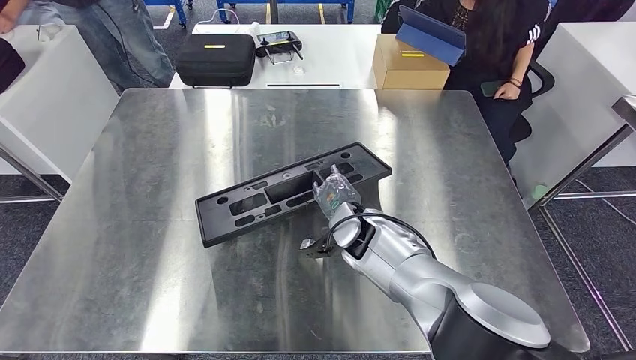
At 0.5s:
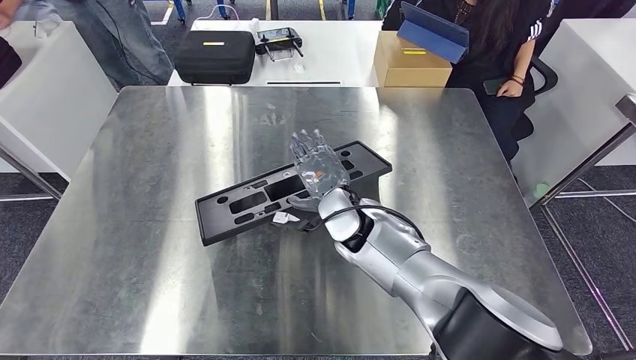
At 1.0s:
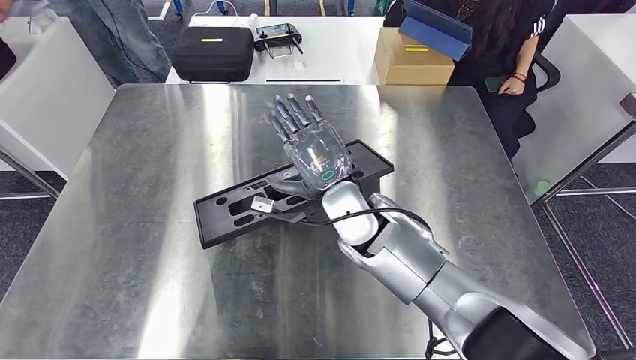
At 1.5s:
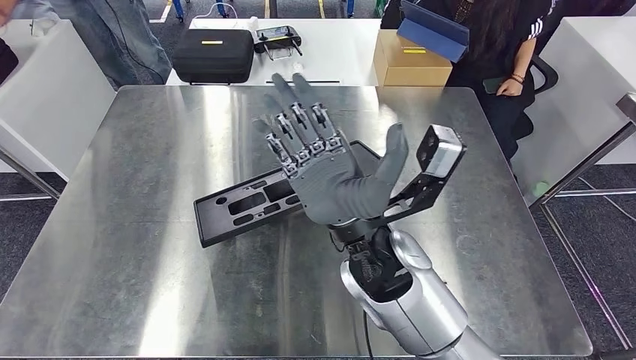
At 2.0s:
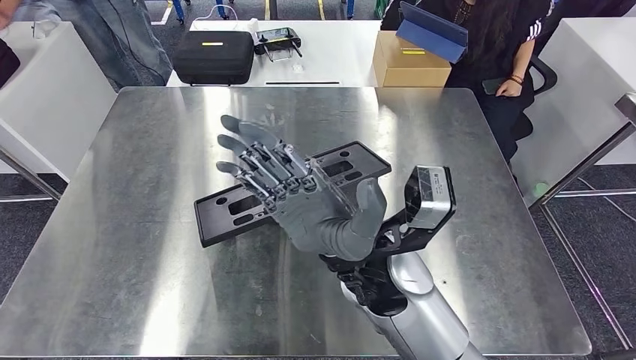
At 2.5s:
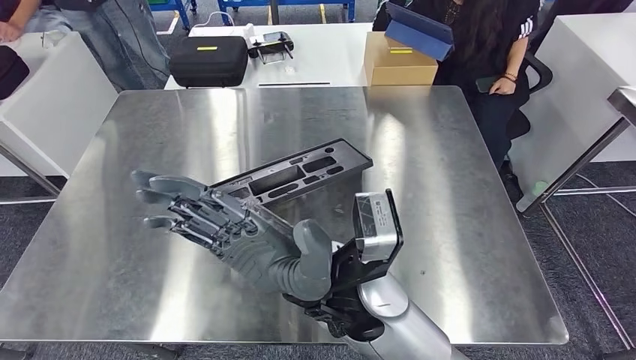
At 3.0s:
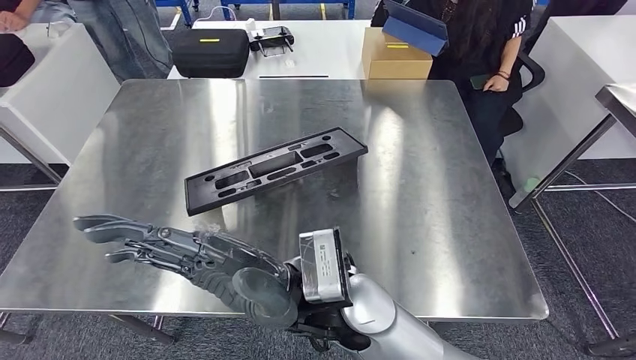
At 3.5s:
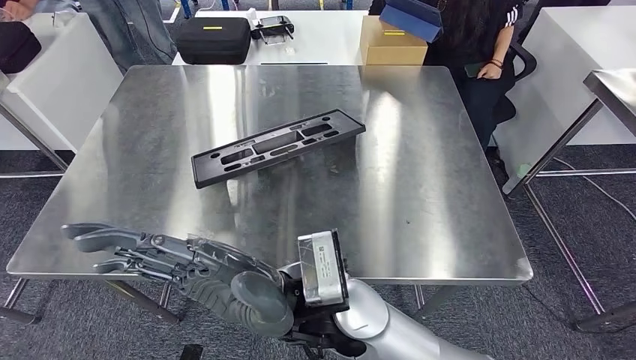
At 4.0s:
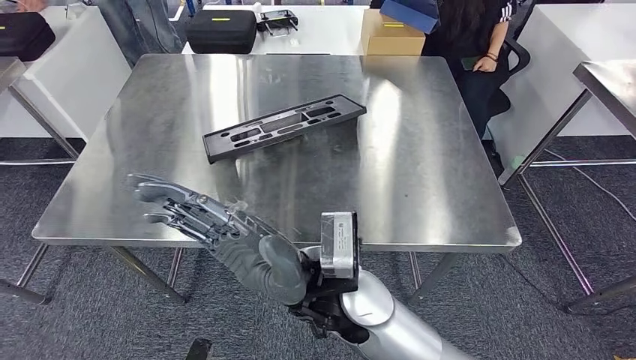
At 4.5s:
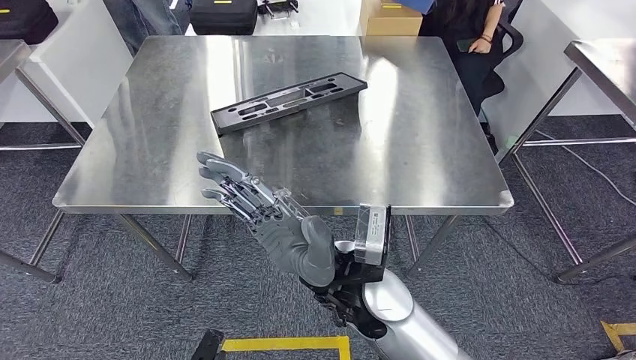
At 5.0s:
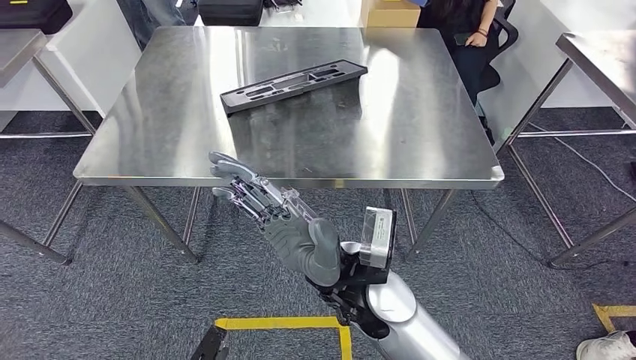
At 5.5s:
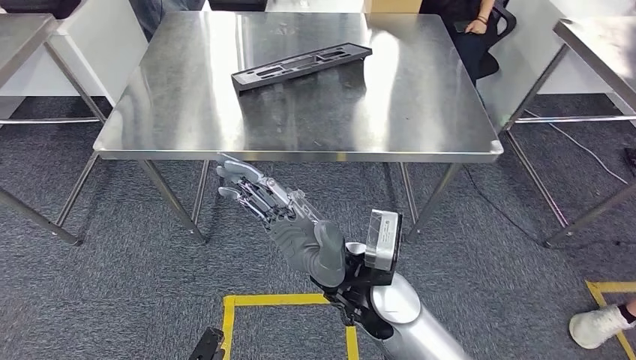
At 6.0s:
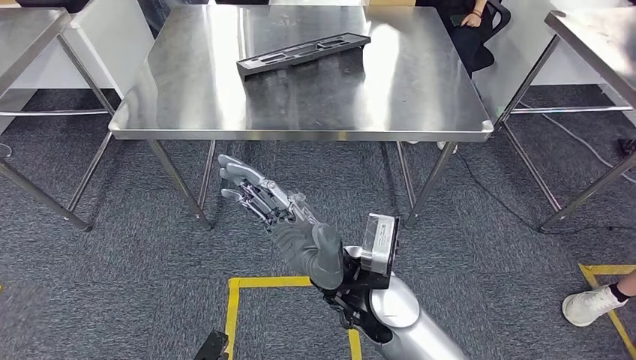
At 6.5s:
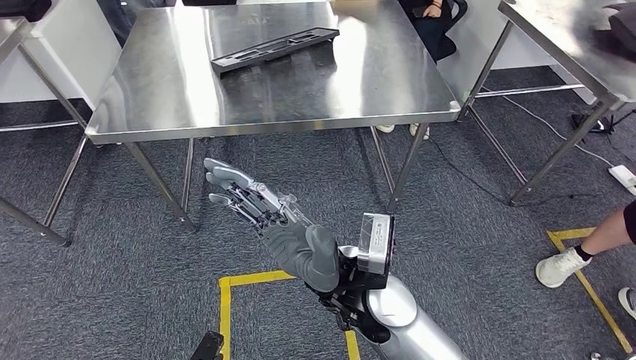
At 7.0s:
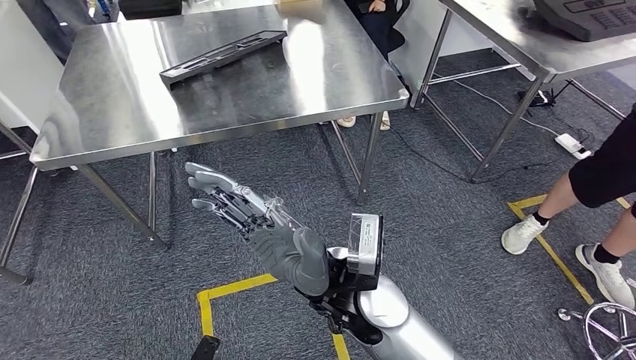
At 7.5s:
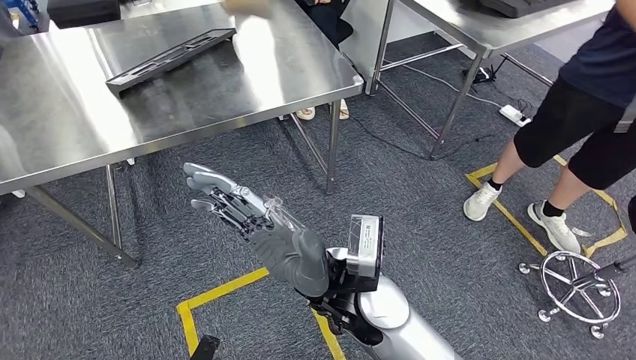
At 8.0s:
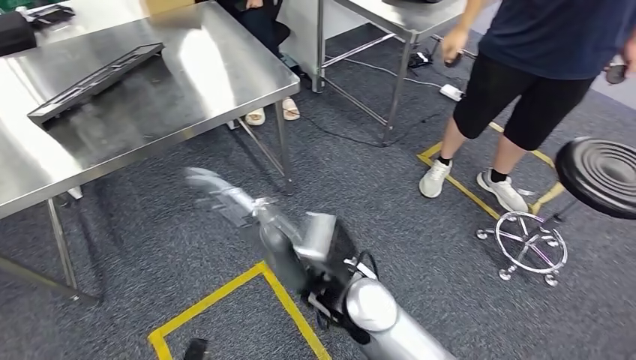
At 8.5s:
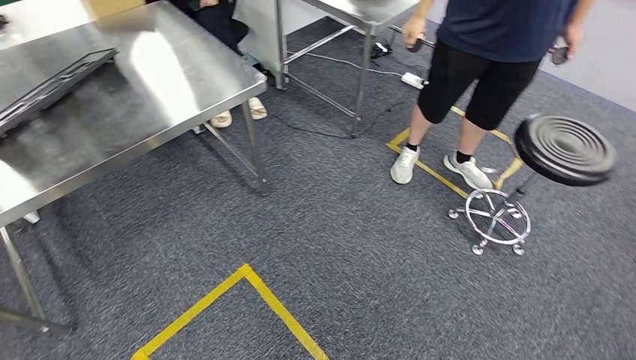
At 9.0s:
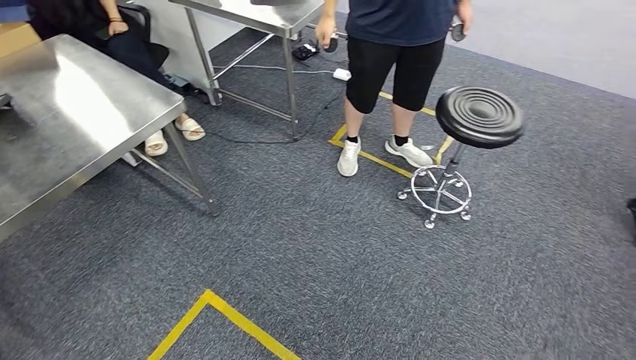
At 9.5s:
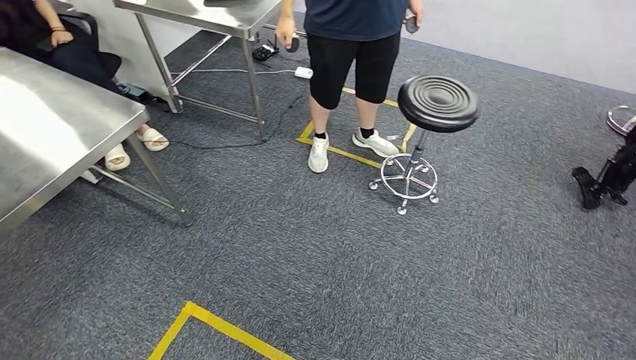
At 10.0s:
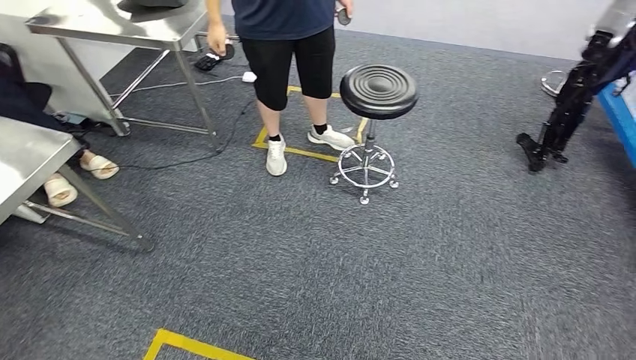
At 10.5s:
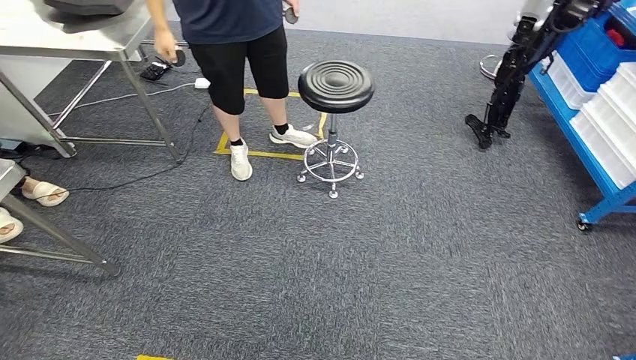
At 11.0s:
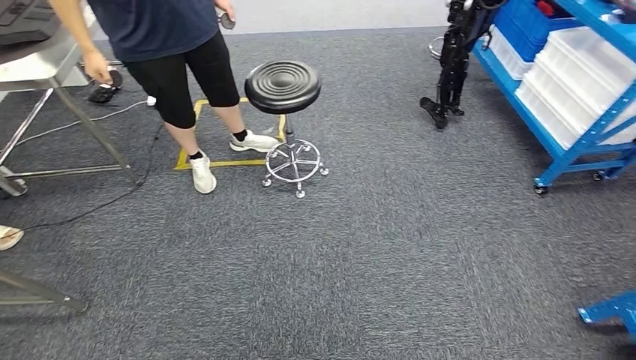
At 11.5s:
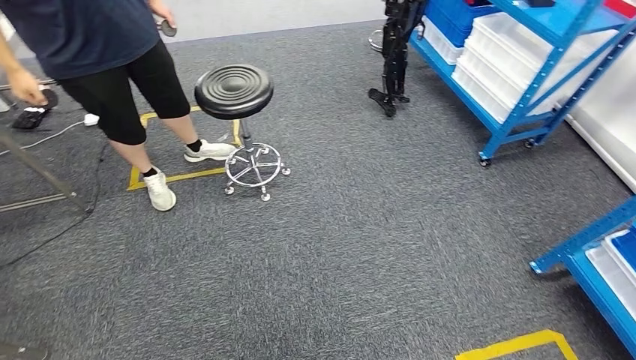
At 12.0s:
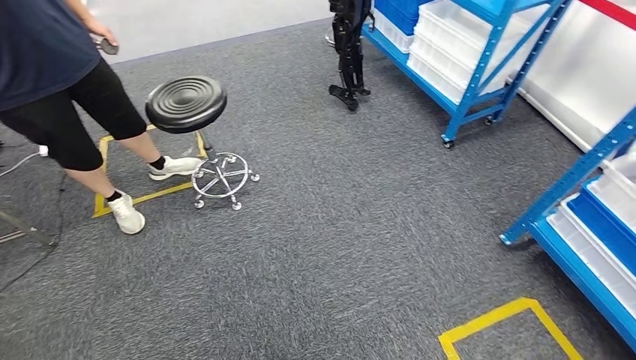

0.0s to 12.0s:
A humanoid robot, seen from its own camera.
Step, 0.0s to 6.0s: Insert the large material into the corresponding slot on the workbench.

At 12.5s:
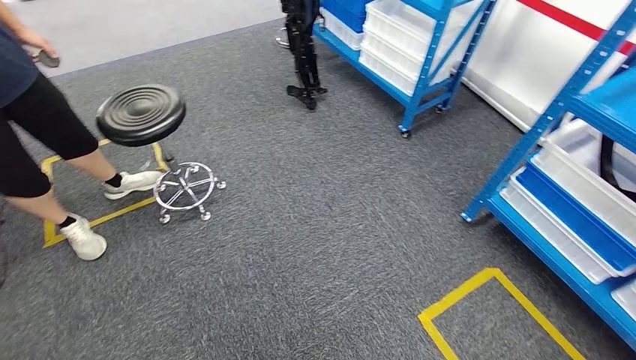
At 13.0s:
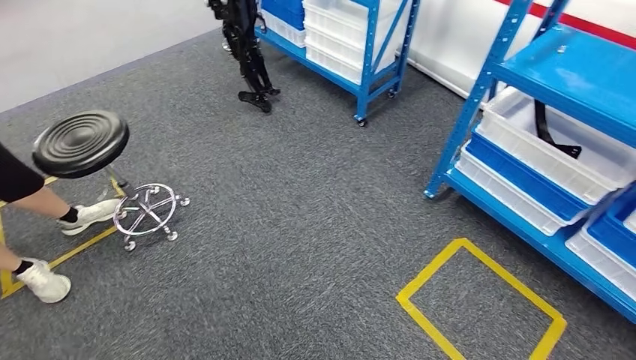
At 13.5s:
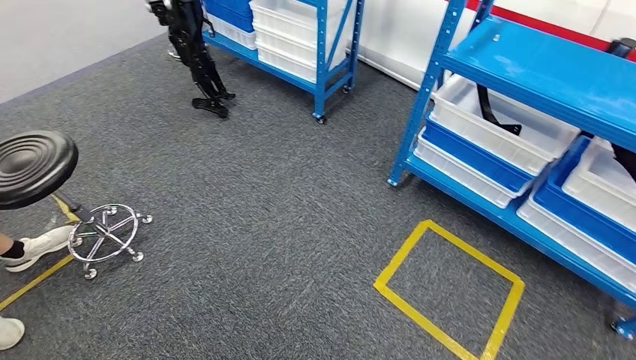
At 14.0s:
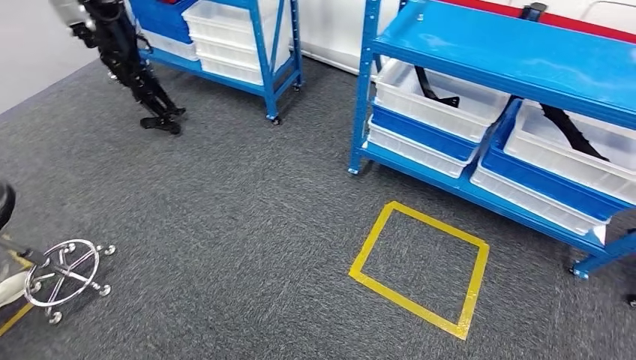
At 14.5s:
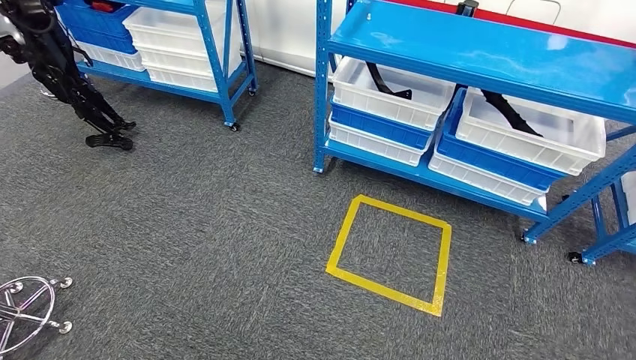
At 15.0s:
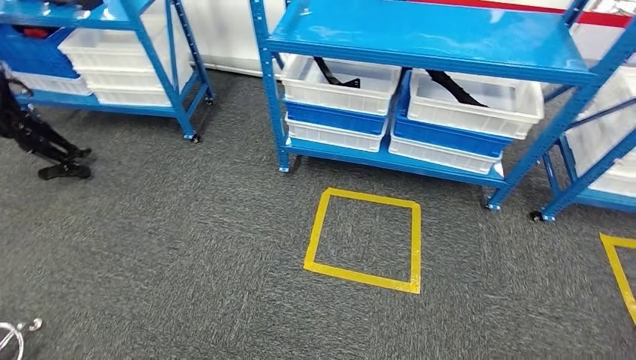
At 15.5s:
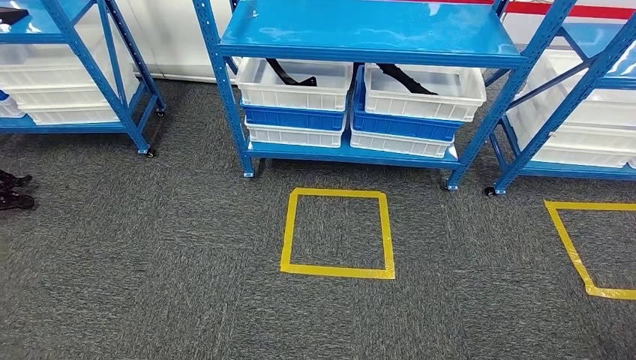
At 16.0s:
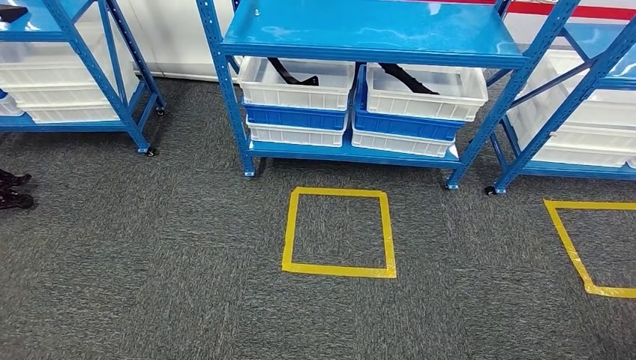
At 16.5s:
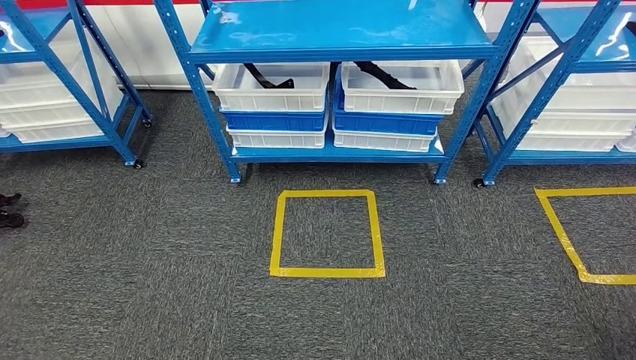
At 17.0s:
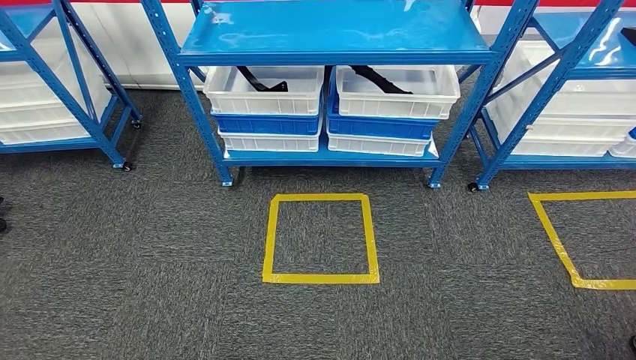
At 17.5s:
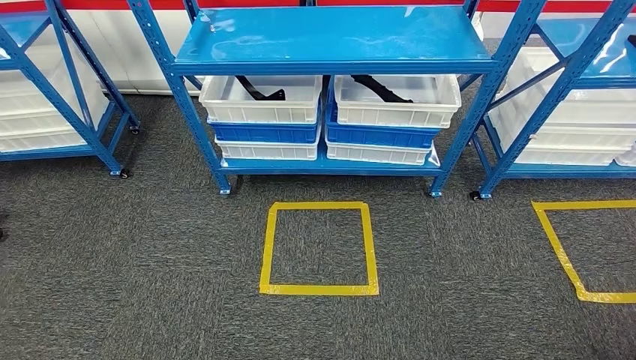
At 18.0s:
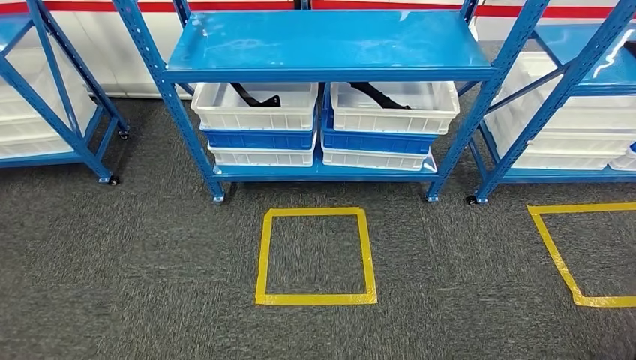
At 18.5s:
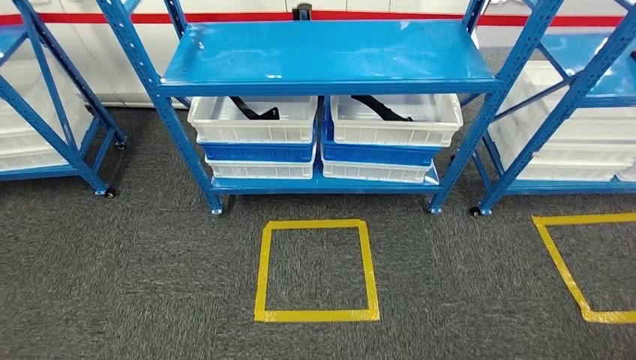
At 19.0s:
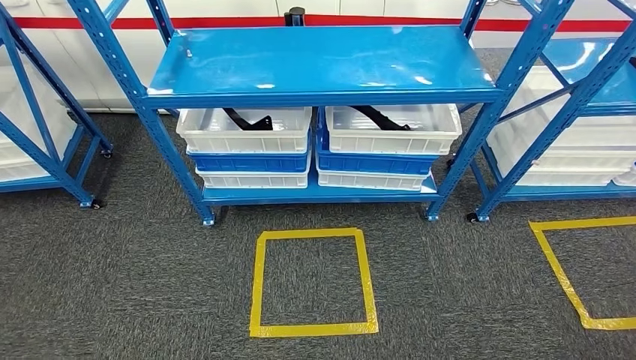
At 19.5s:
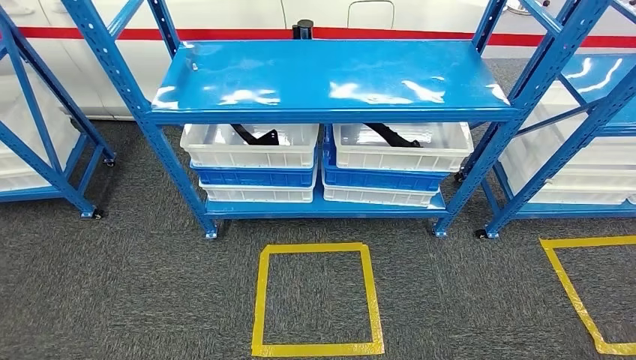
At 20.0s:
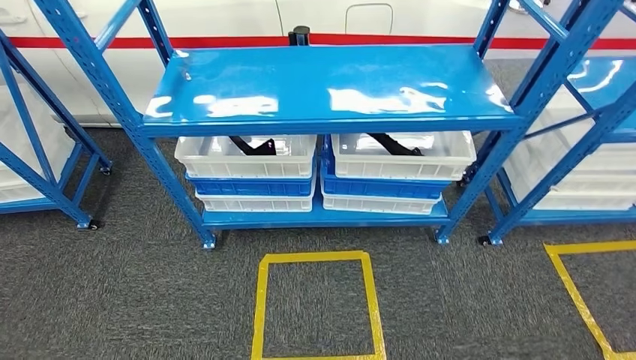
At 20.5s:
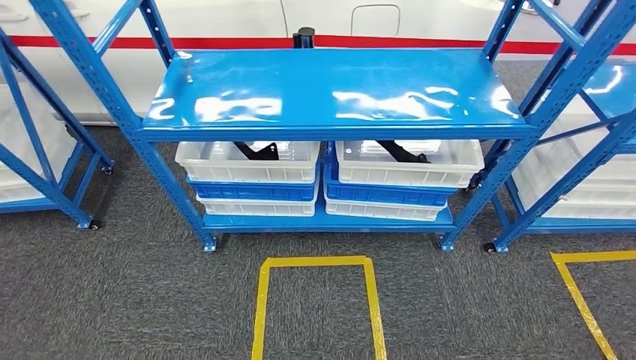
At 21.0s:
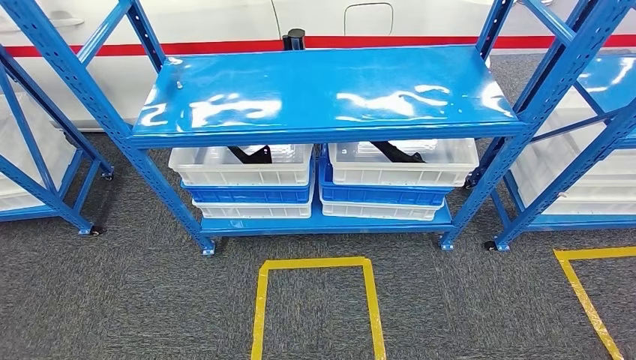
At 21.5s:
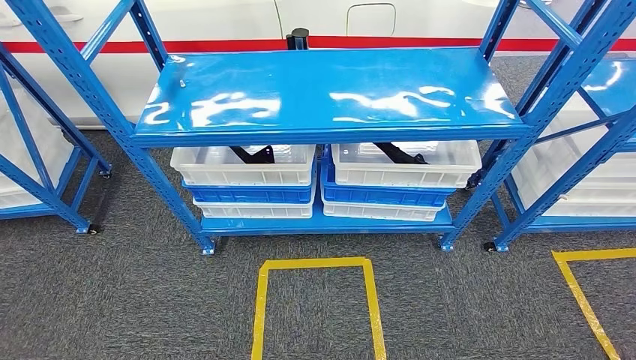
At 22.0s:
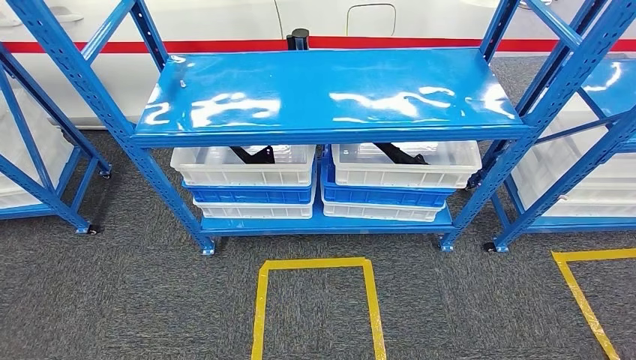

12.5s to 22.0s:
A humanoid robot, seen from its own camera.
Step, 12.5s to 22.0s: Move to the initial position of the shelf.
